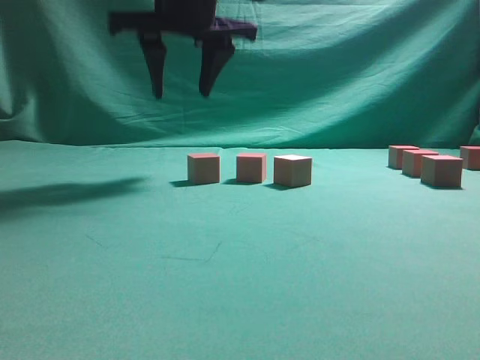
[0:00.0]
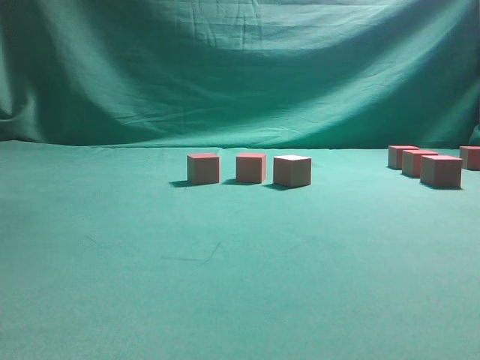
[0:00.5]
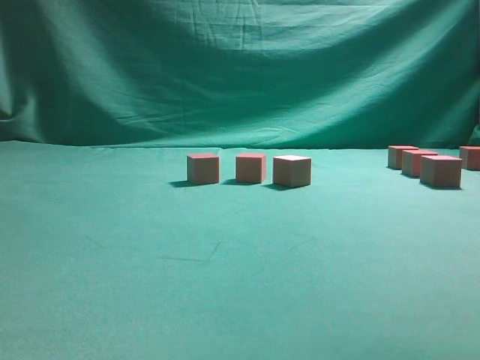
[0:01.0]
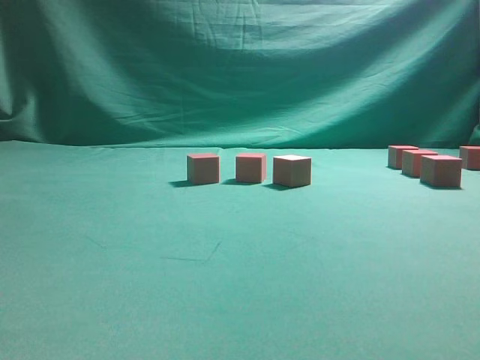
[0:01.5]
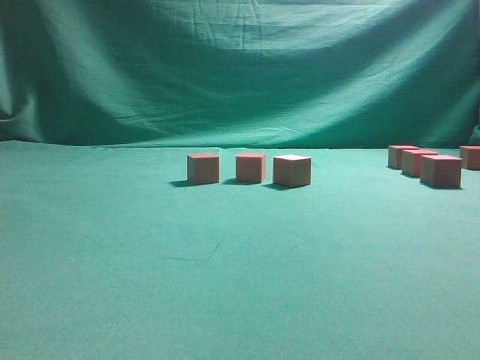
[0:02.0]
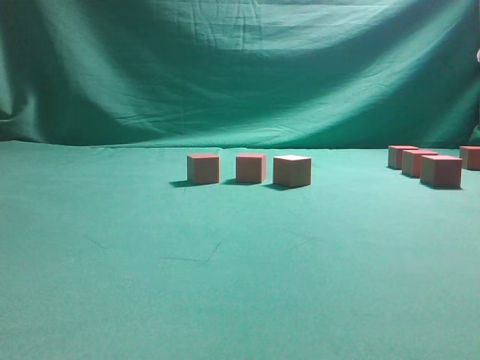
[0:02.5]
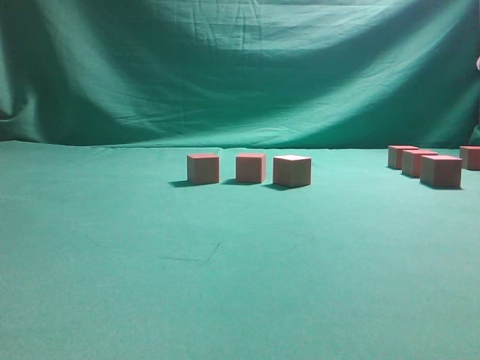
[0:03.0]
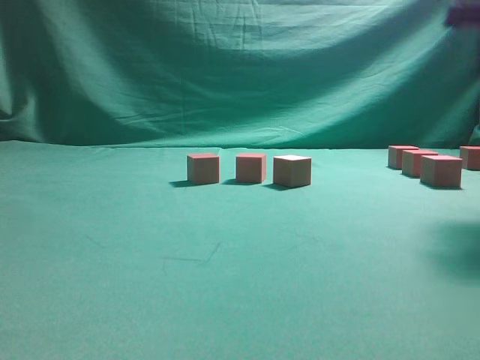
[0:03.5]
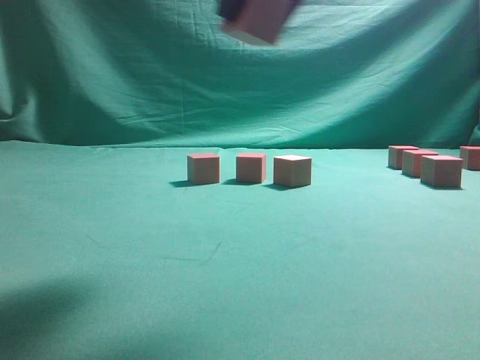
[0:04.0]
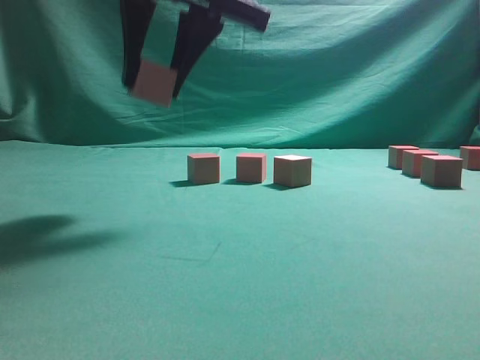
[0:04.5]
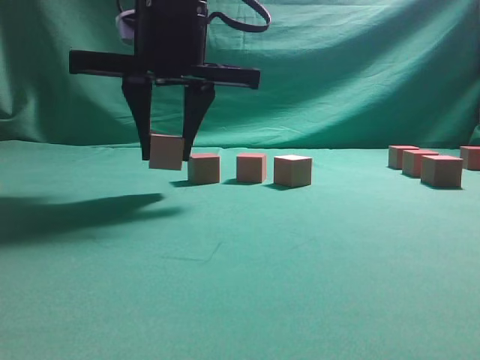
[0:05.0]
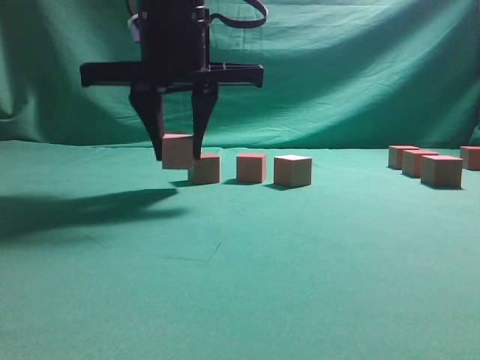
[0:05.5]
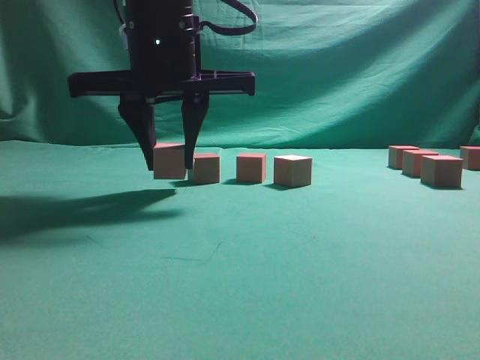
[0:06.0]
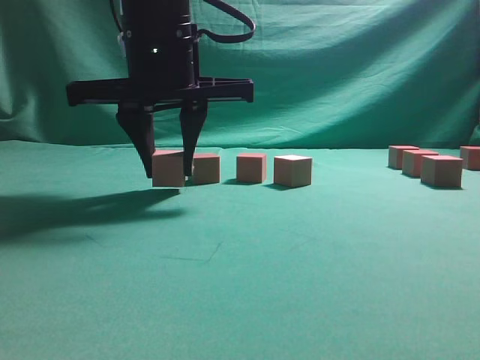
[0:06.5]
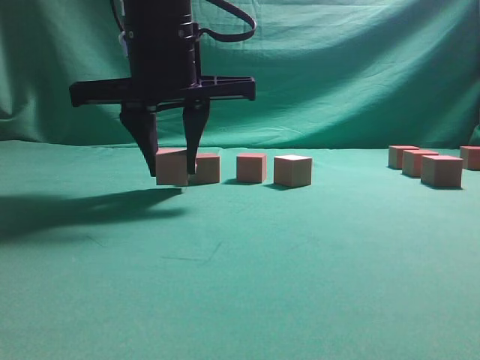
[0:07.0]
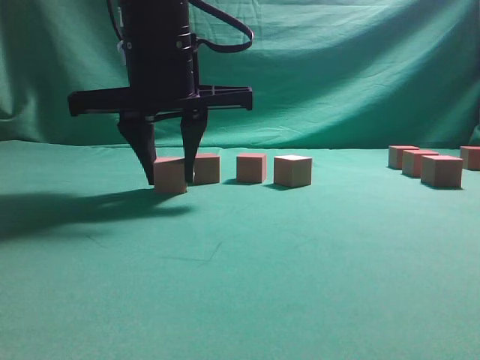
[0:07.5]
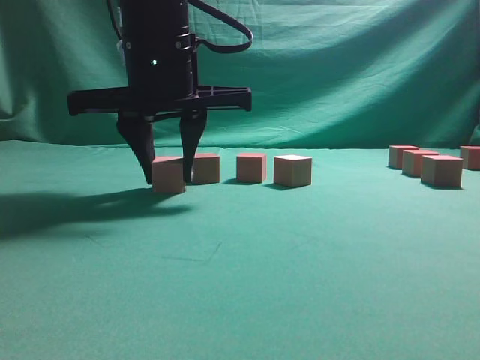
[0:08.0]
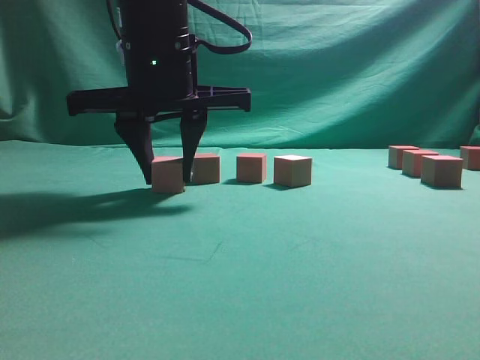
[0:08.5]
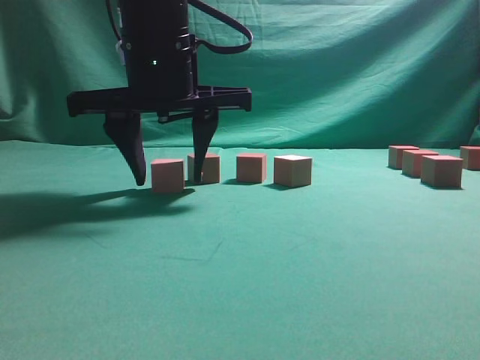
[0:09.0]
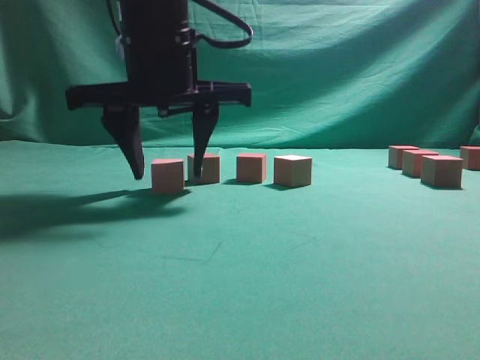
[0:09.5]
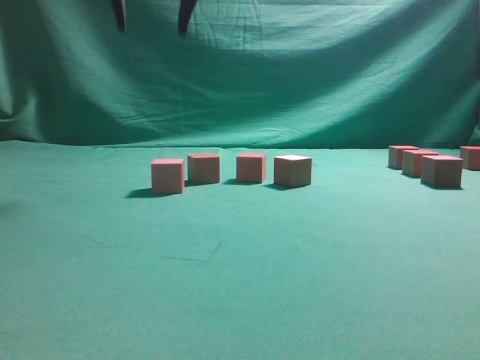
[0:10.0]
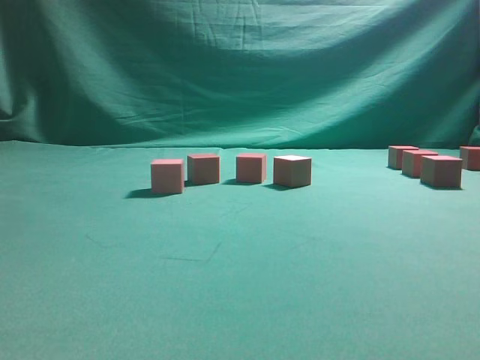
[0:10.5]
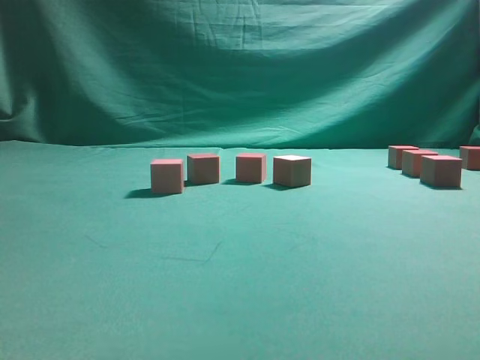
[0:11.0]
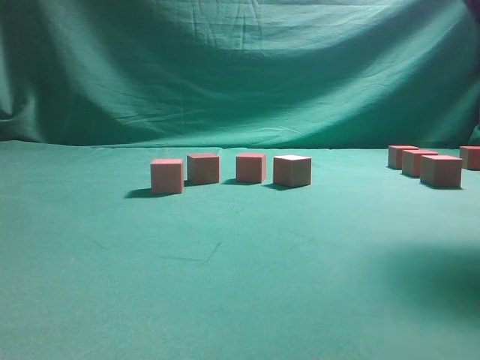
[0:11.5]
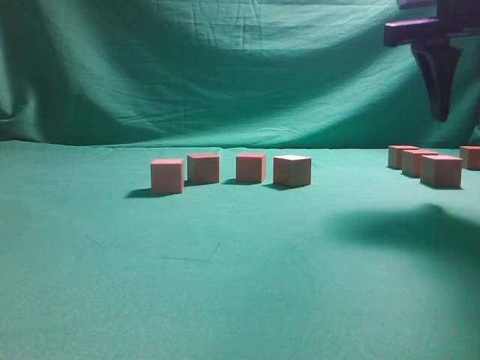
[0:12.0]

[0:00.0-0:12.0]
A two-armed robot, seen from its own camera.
Task of the whole recording: pick up the multiple cubes in two columns one by one and place them in another position on the table.
Step, 0:00.5 to 0:03.5: Pick up the block on the table.
Step, 0:04.0 to 0:09.5: Place the block at the correct position to assemble the letter S.
0:00.0 to 0:02.0: The right gripper travels to the right by about 35 cm.
0:02.0 to 0:04.0: The right gripper goes approximately 25 cm to the left.
0:04.0 to 0:06.0: The right gripper shifts approximately 20 cm to the left, downward and forward.
0:06.0 to 0:08.0: The grippers stay close to where they were, moving slightly.
0:08.0 to 0:10.0: The right gripper goes some 15 cm upward.
0:10.0 to 0:12.0: The right gripper goes some 25 cm to the right.

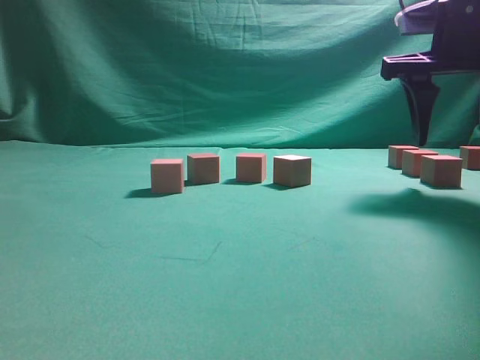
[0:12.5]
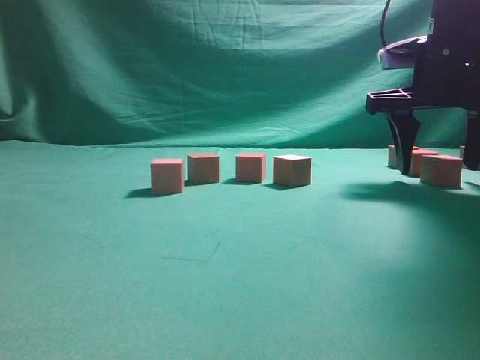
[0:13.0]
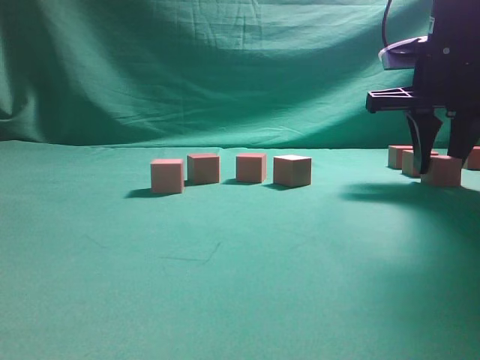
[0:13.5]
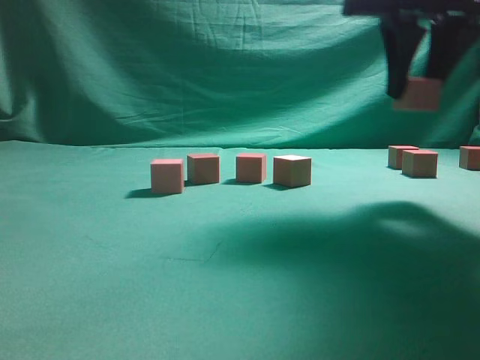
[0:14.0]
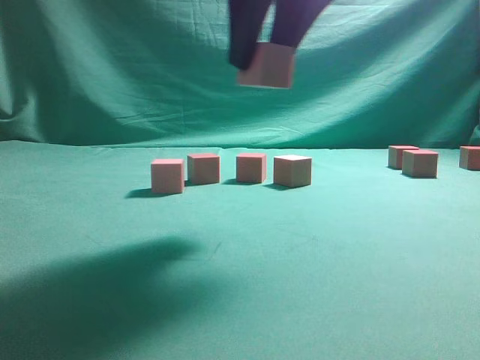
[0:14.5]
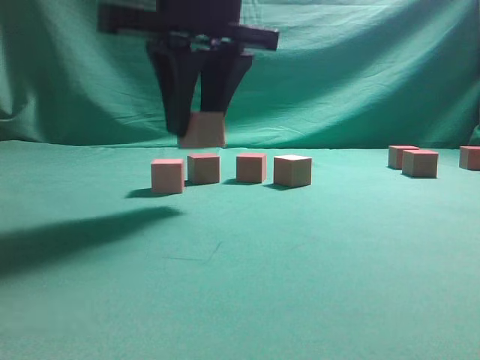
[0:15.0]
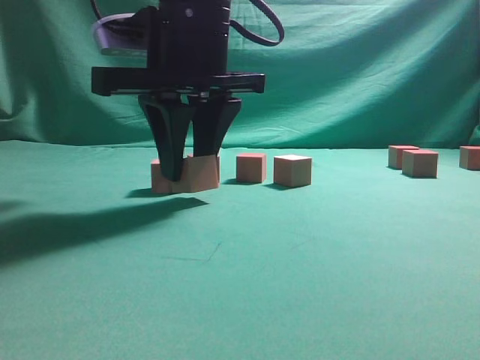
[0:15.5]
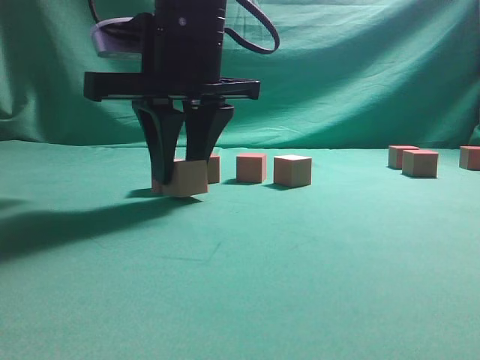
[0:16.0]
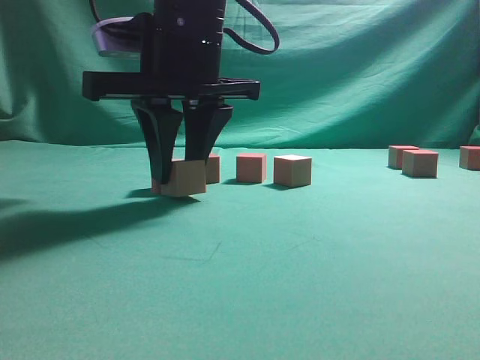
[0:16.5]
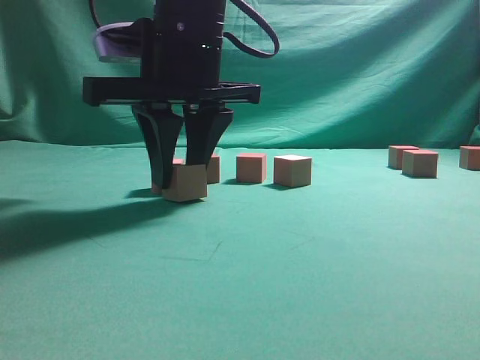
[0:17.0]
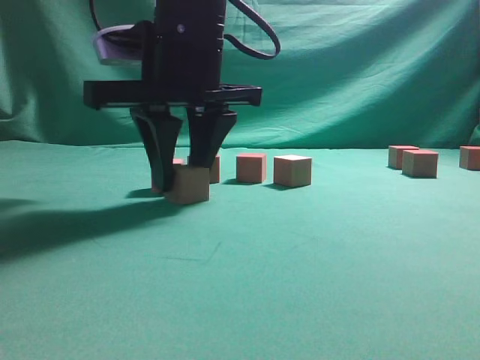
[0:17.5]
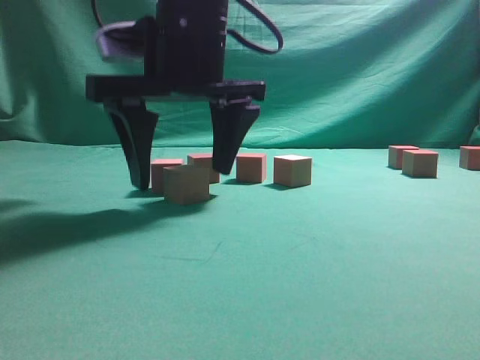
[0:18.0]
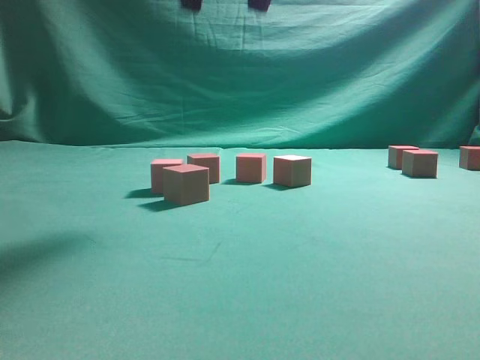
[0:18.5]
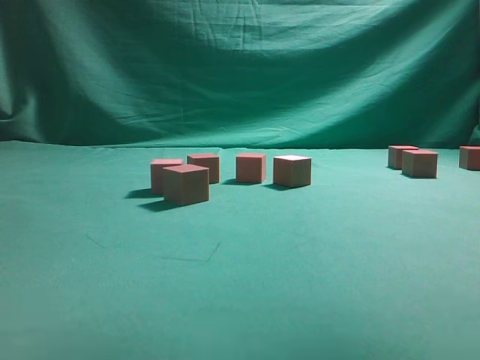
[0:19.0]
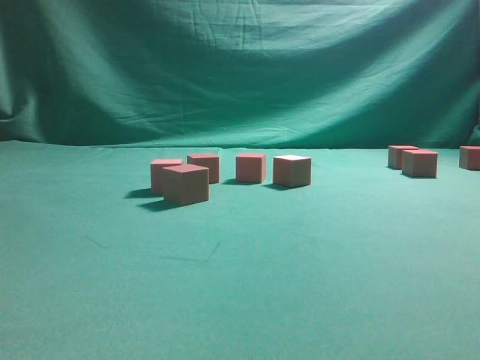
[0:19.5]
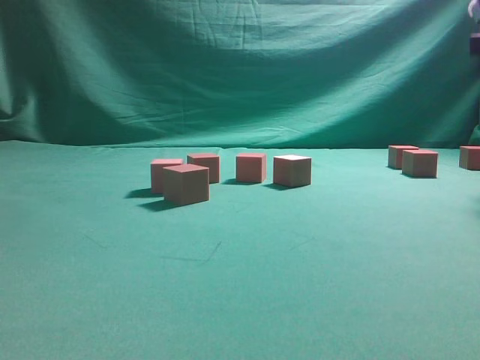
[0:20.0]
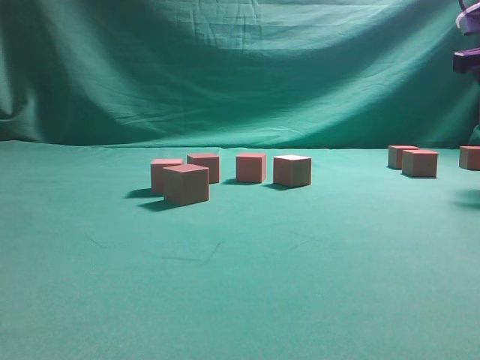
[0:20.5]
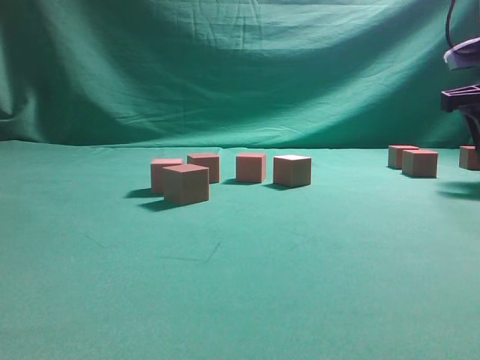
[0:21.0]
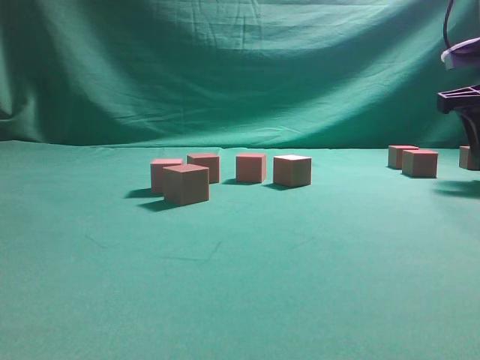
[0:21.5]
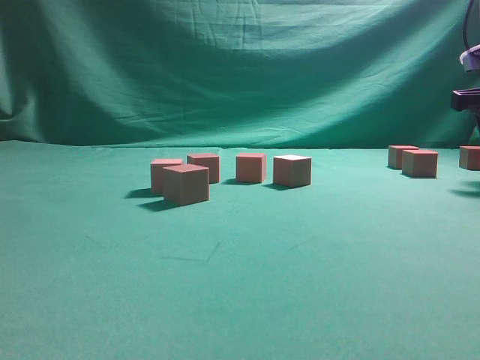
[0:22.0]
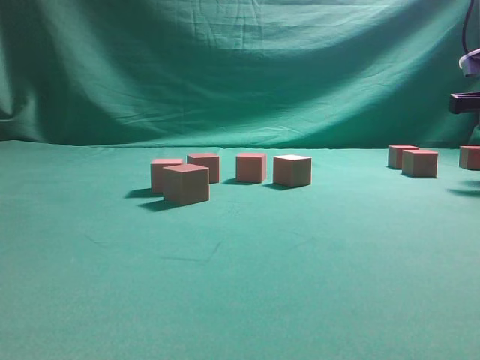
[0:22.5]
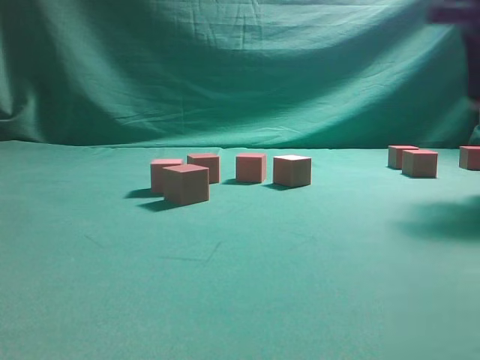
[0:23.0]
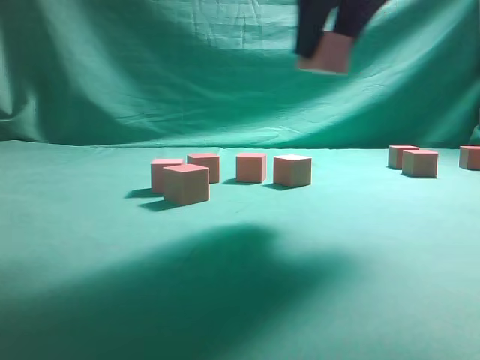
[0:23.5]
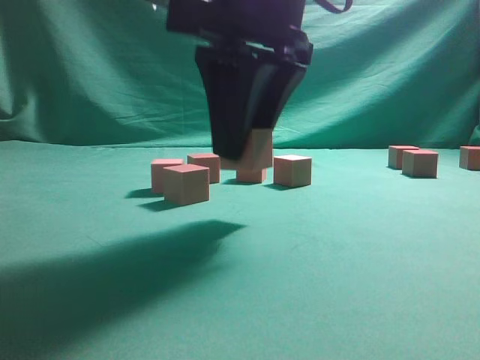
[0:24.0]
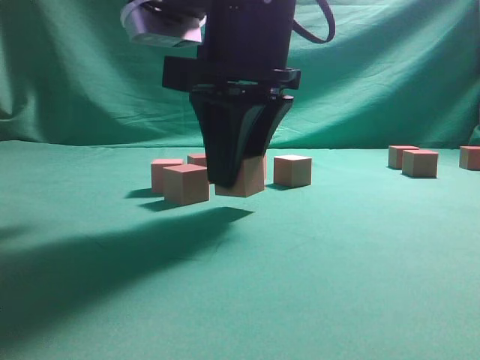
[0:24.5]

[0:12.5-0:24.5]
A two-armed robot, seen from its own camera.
Task of the whole recording: pick up the multiple cubes in two columns one by one and place them in another position on the table.
Step, 0:14.0 to 0:18.0: Place the block at the correct position to assemble the letter S.
Step, 0:18.5 to 0:22.5: Pick up the block on the table.
0:12.5 to 0:14.5: The right gripper is displaced to the left and backward by approximately 20 cm, and closes its fingers.
0:14.5 to 0:16.5: The right gripper moves downward, to the left and forward, approximately 15 cm.
0:16.5 to 0:18.5: The right gripper is displaced upward by approximately 15 cm, and opens.
0:18.5 to 0:20.5: The right gripper is displaced to the right and downward by roughly 30 cm.
0:20.5 to 0:22.5: The right gripper moves some 5 cm, and closes up.
0:22.5 to 0:24.5: The right gripper moves to the left, about 30 cm.

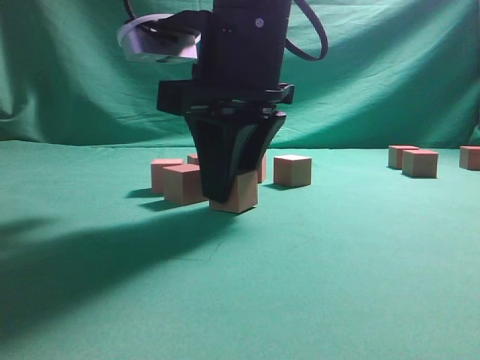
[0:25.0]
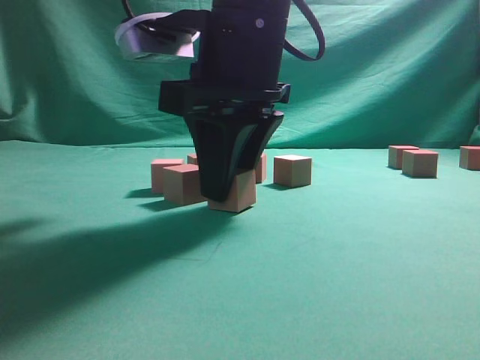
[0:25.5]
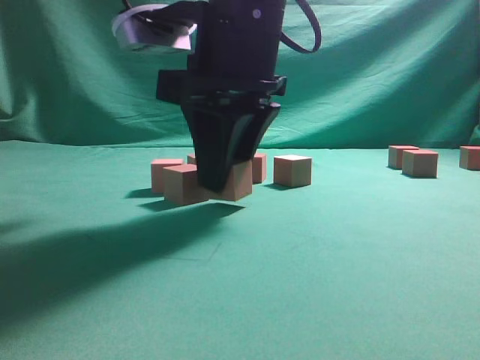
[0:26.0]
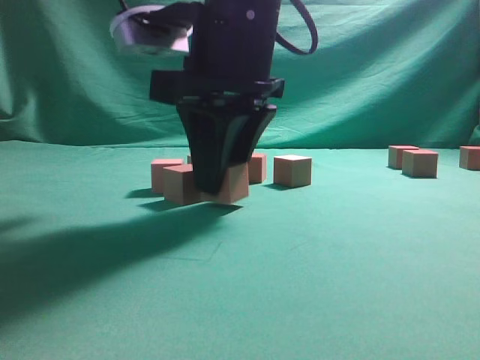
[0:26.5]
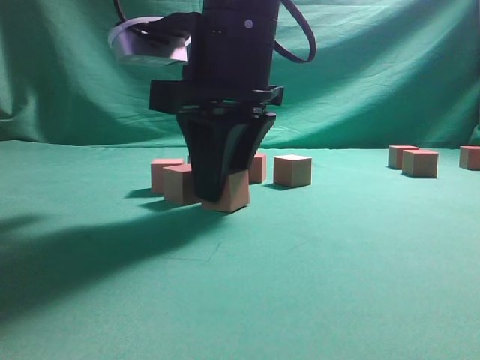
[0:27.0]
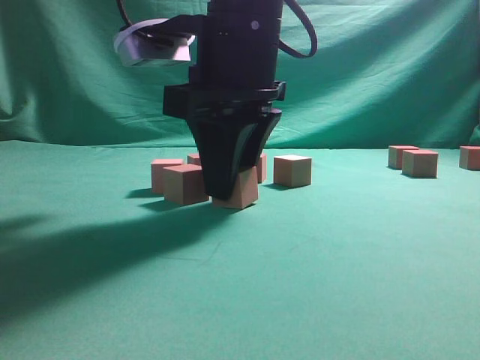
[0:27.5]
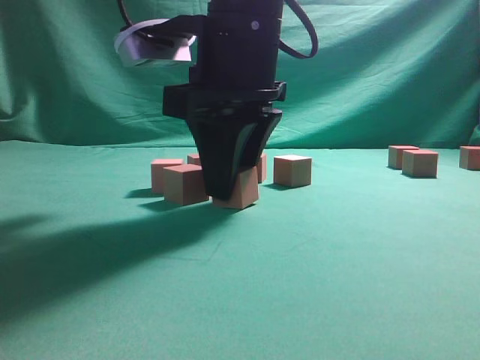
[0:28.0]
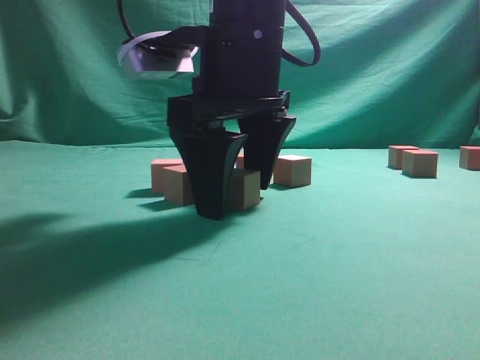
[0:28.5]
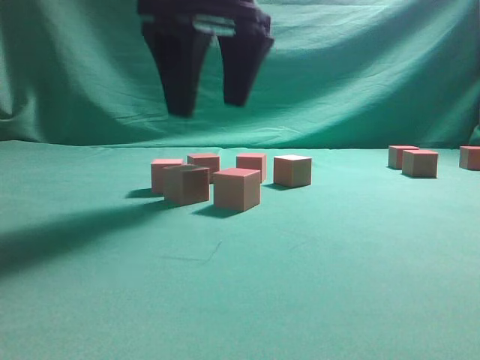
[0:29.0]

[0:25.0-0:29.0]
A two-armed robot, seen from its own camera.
Task of the whole recording: pick up the multiple cubes in two columns one by one and place them in another position on the table.
Step, 0:25.0 to 0:29.0: Place the block at the correct position to assemble the letter S.
0:25.0 to 0:27.0: The grippers stay close to where they were, moving slightly.
0:27.0 to 0:29.0: The right gripper shifts roughly 10 cm upward, and opens up.
